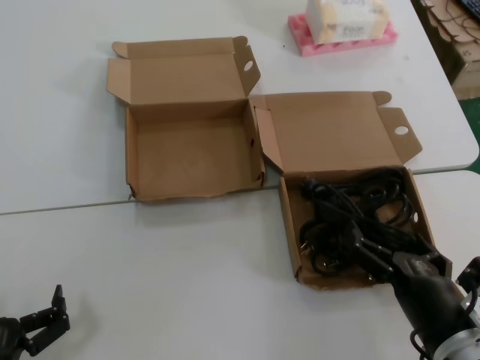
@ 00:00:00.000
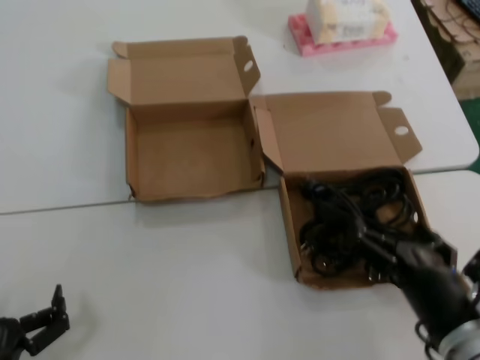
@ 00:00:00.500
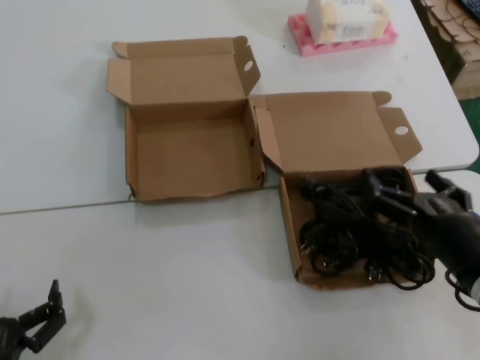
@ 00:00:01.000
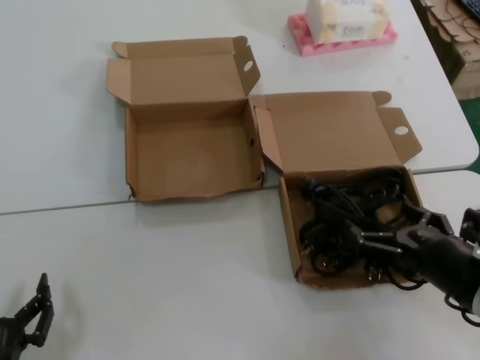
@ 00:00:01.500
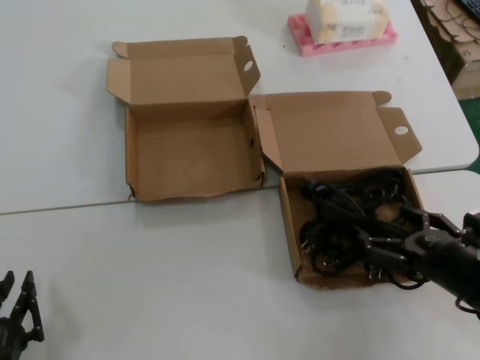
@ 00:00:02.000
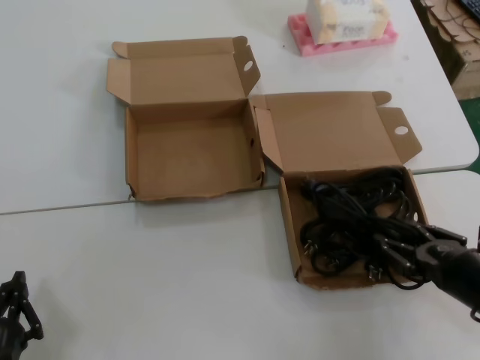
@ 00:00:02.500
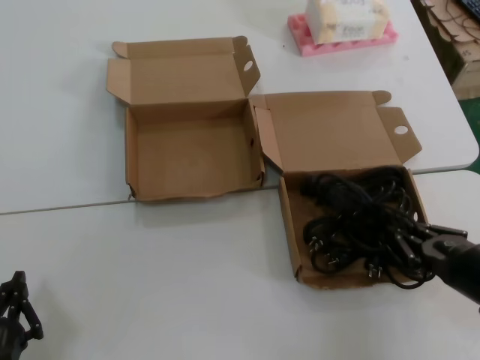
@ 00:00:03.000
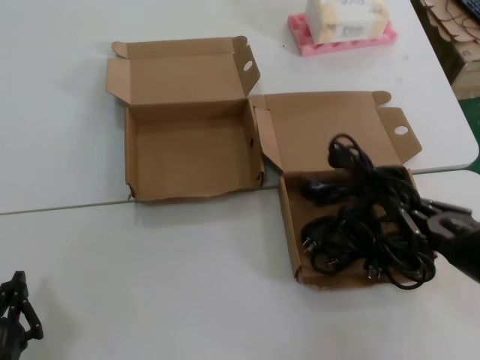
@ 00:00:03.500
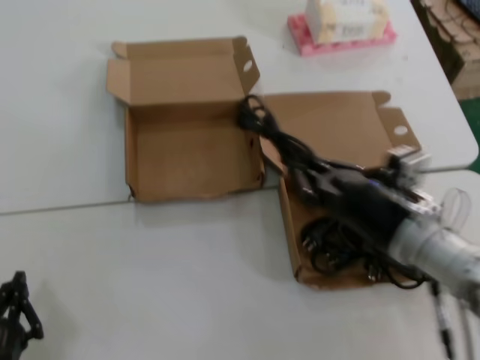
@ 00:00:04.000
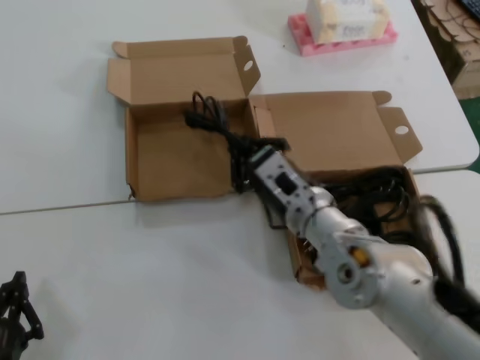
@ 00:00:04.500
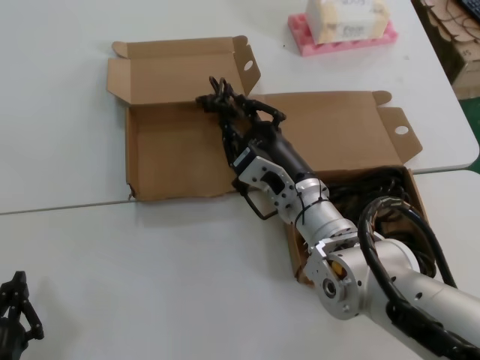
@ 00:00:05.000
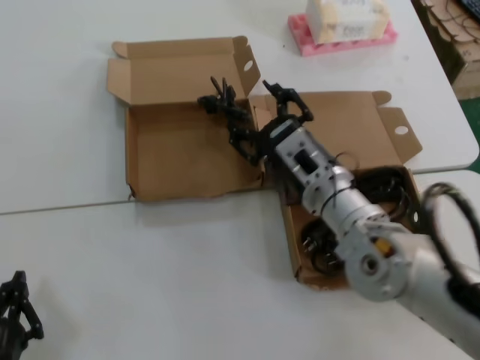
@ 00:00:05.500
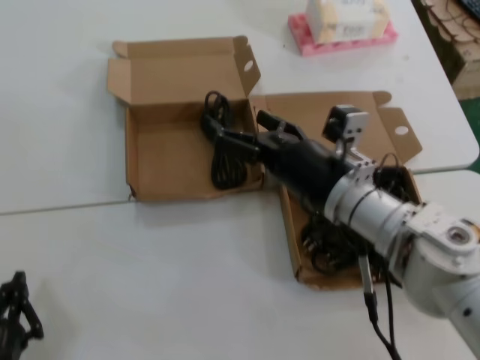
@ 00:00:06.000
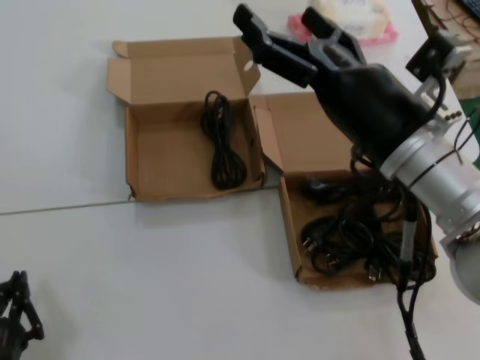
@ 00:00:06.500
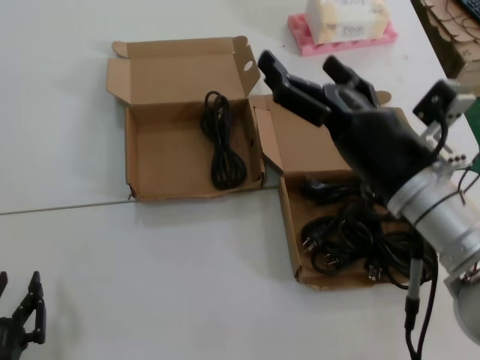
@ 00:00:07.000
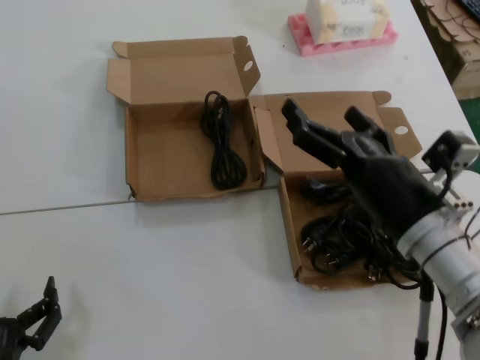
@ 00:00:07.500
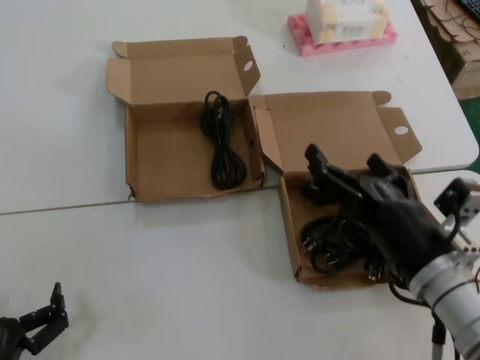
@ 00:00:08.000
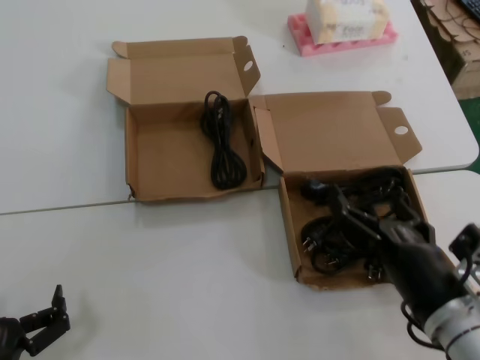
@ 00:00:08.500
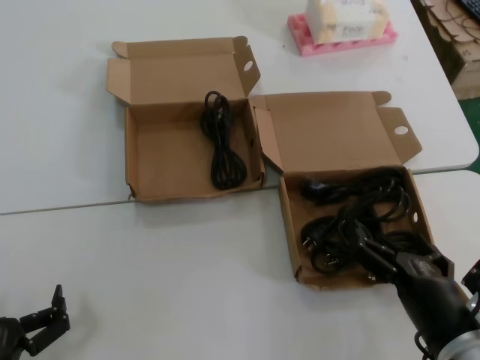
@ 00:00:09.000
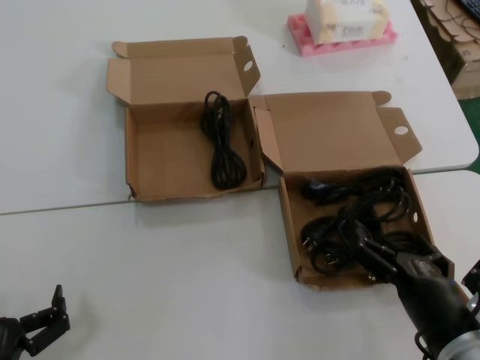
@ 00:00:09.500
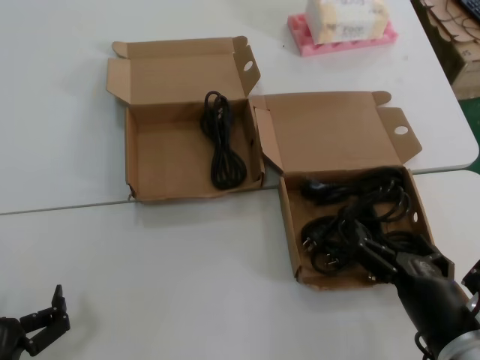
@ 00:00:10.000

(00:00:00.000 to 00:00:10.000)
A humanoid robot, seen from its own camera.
Task of the whole recording: Pick up the power cord from the box containing it and place it in another box.
Step, 00:00:00.000 - 00:00:03.000: Grasp the data cable.
Step, 00:00:03.500 - 00:00:05.500: Place the data cable in the another box.
00:00:00.000 - 00:00:02.000: The right hand moves to the right and forward, about 10 cm.
00:00:02.000 - 00:00:04.000: The right hand shifts some 10 cm to the left.
00:00:04.000 - 00:00:06.000: The right hand is displaced to the left and forward by about 10 cm.
00:00:06.000 - 00:00:08.000: The right hand moves backward, to the right and downward, some 15 cm.
00:00:08.000 - 00:00:10.000: The right hand is displaced downward and backward by some 10 cm.
